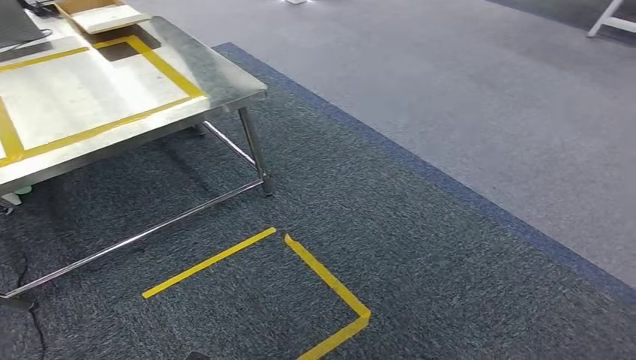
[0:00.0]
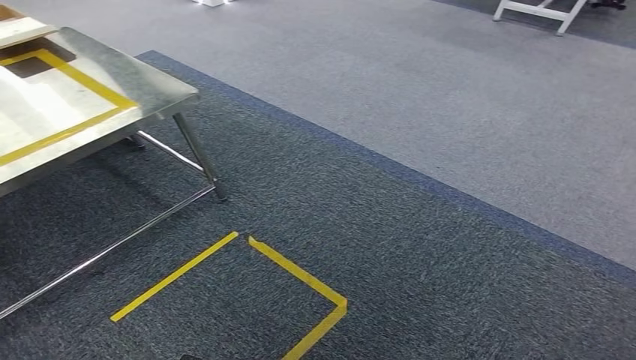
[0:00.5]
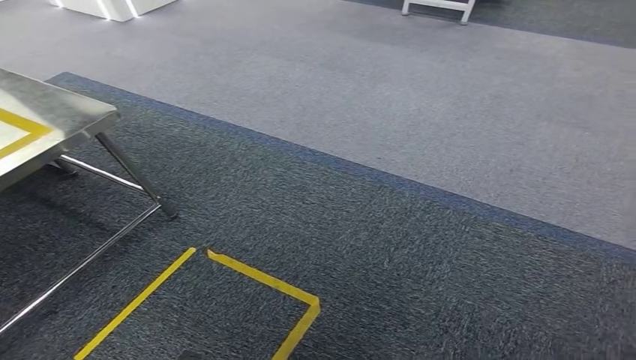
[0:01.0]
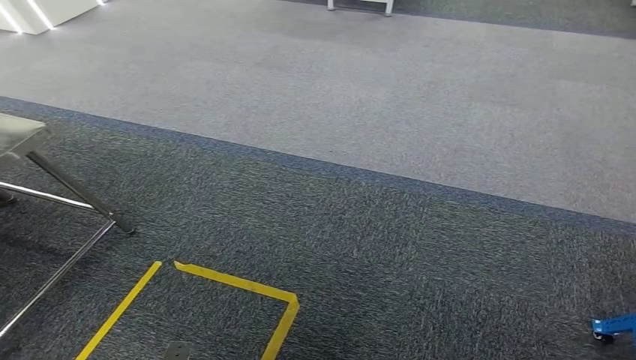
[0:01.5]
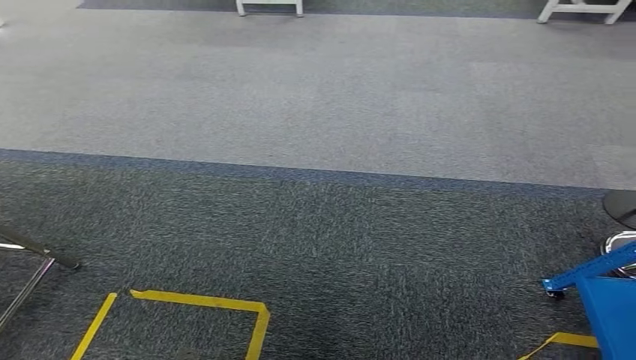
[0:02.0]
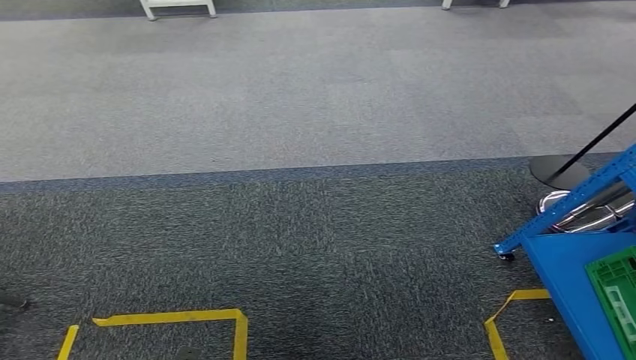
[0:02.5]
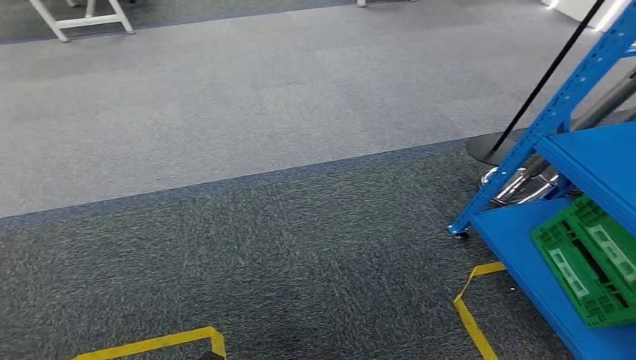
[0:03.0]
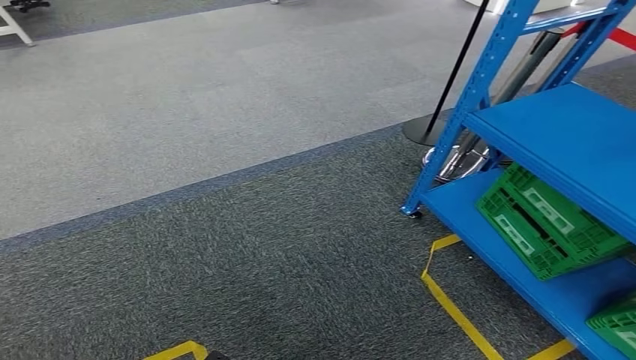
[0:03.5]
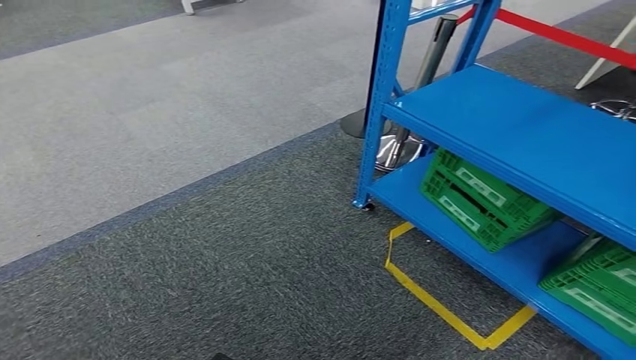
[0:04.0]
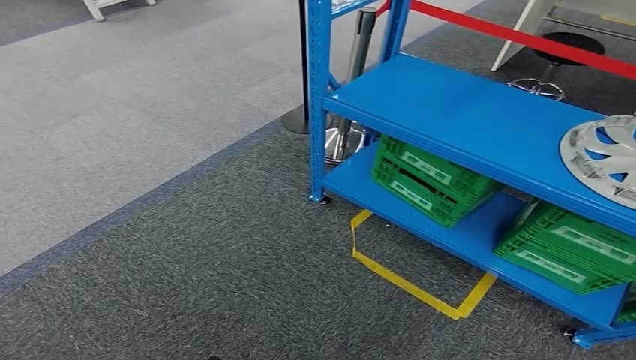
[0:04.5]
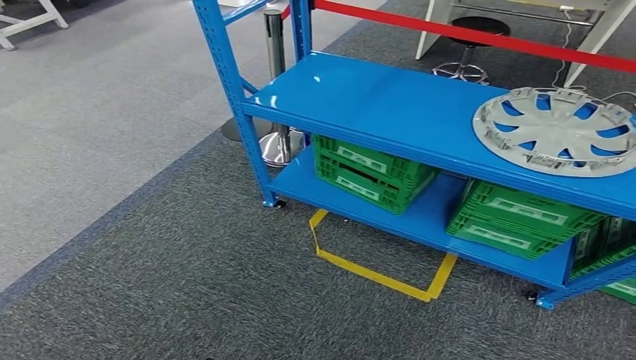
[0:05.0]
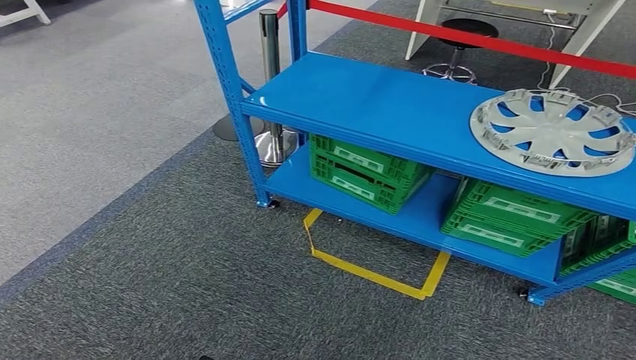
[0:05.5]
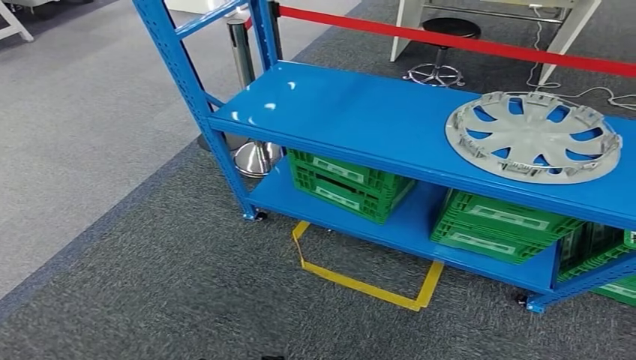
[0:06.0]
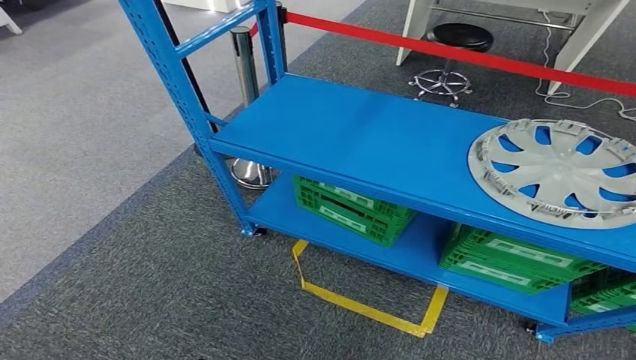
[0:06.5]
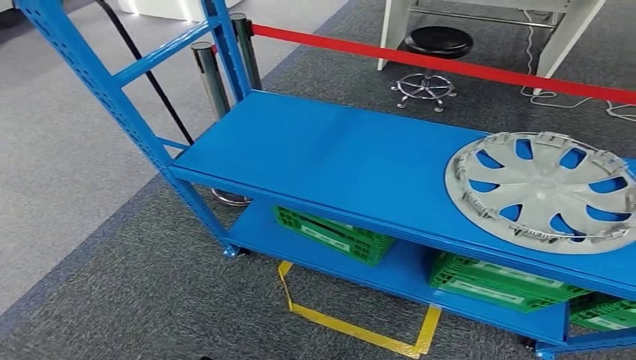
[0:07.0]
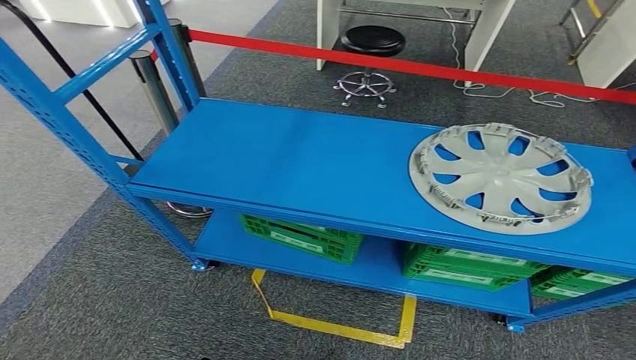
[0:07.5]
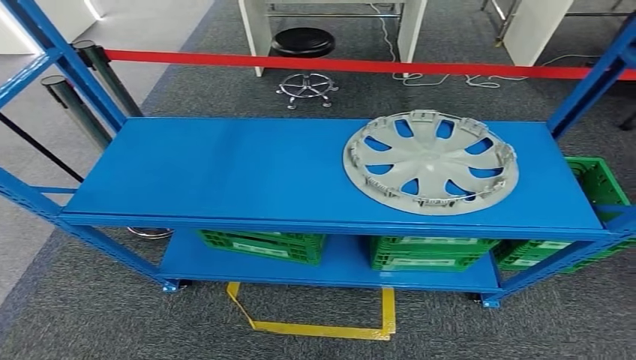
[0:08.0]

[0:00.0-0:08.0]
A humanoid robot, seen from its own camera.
Step, 0:00.0 to 0:08.0: Return to the initial position at the workbench.
